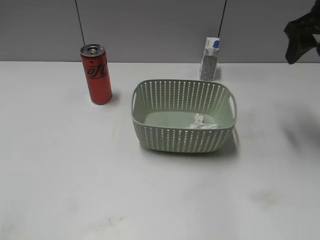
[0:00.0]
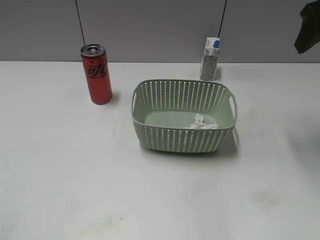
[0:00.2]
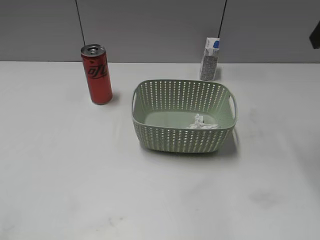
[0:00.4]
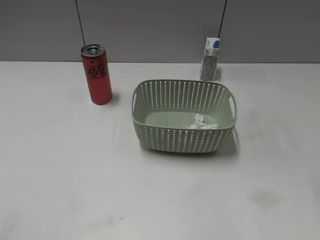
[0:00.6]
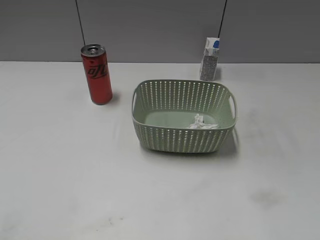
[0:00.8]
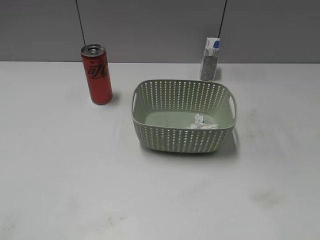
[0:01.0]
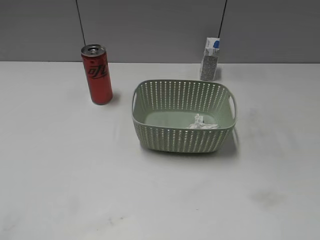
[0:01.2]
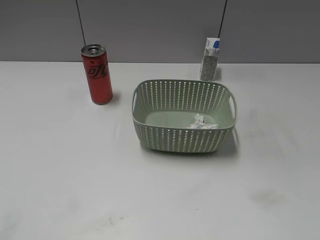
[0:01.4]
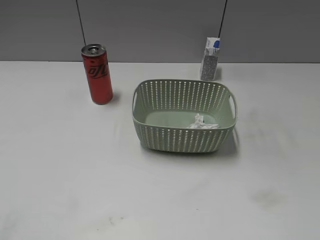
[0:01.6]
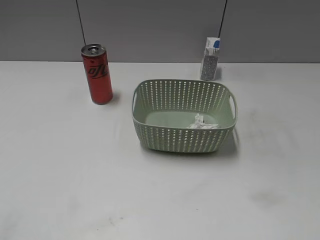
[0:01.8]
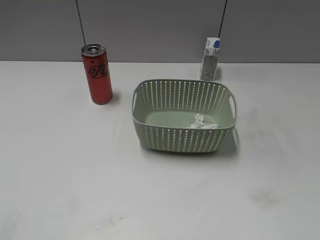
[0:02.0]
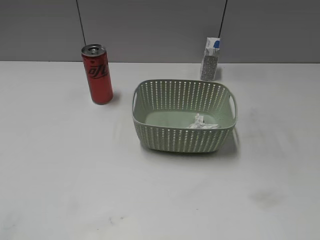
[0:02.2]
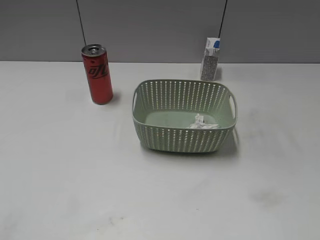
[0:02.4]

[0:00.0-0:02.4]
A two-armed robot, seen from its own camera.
0:00.0 to 0:01.2: The right gripper travels backward by roughly 35 cm.
